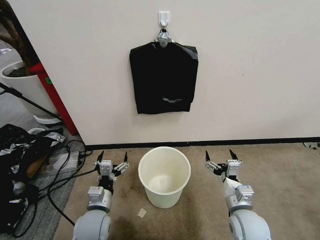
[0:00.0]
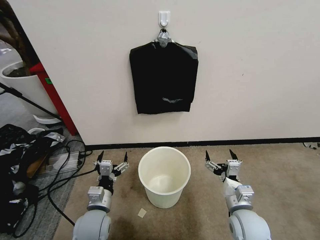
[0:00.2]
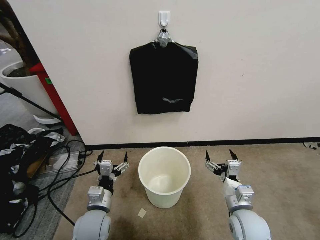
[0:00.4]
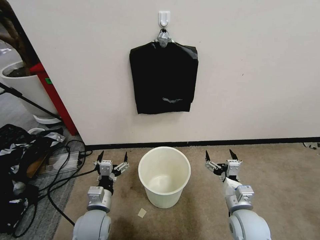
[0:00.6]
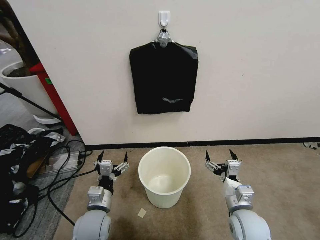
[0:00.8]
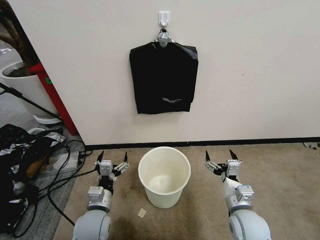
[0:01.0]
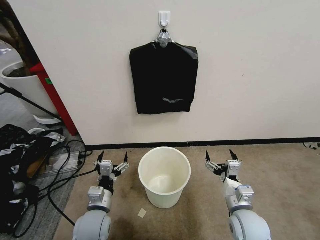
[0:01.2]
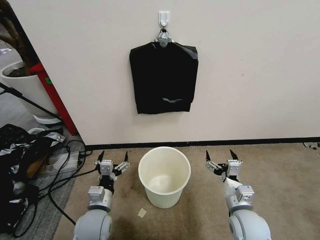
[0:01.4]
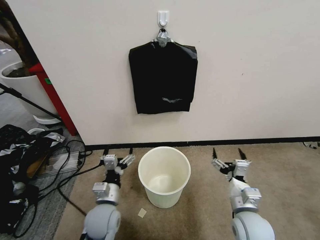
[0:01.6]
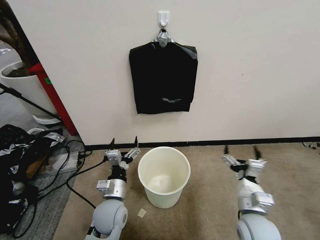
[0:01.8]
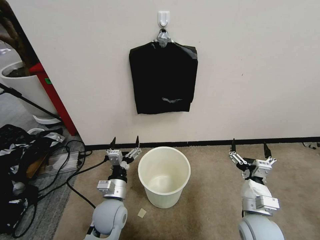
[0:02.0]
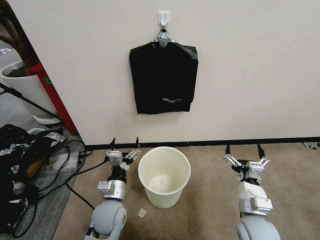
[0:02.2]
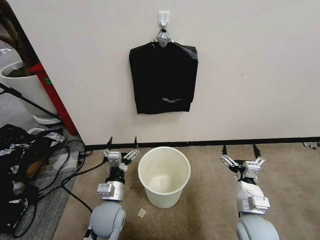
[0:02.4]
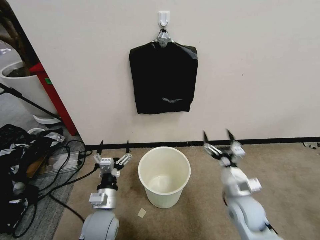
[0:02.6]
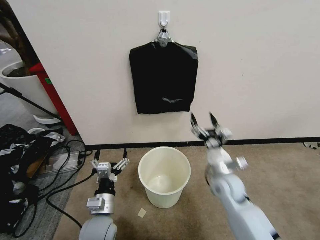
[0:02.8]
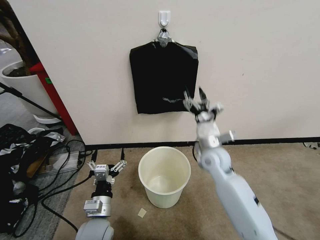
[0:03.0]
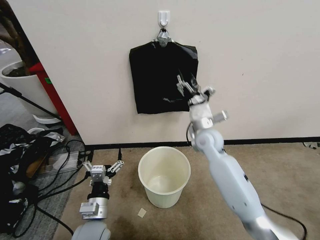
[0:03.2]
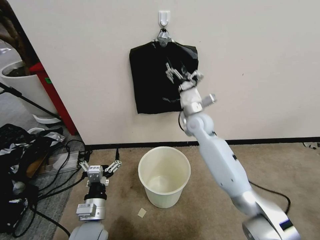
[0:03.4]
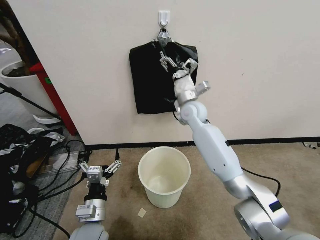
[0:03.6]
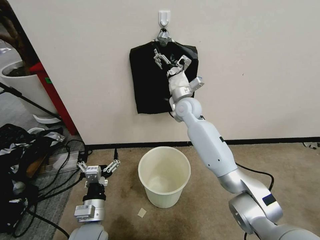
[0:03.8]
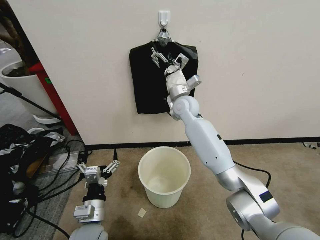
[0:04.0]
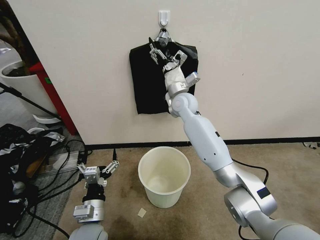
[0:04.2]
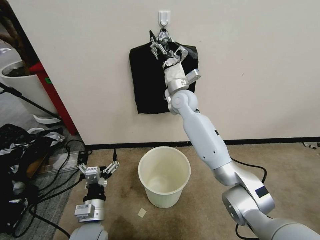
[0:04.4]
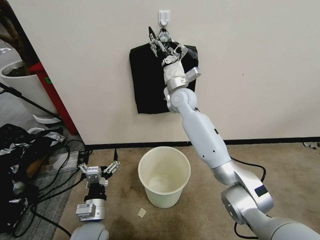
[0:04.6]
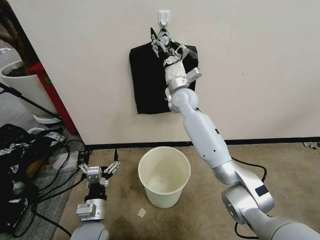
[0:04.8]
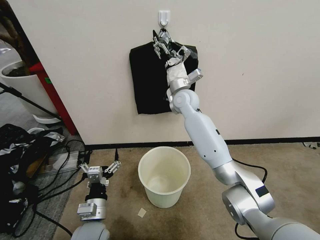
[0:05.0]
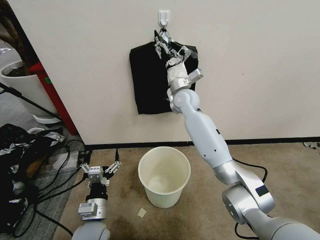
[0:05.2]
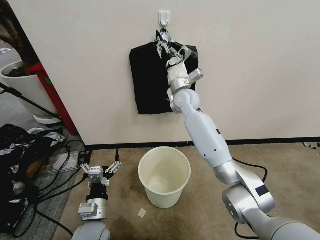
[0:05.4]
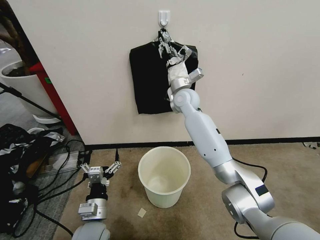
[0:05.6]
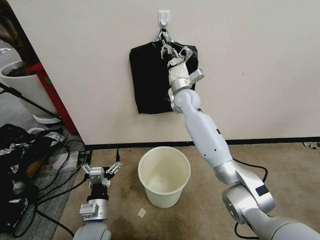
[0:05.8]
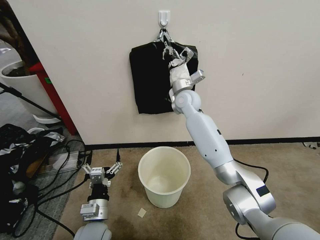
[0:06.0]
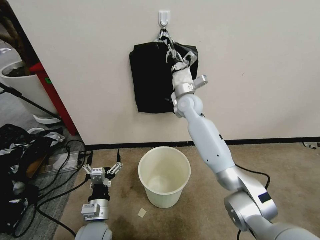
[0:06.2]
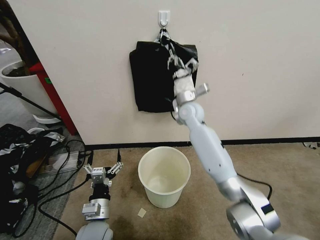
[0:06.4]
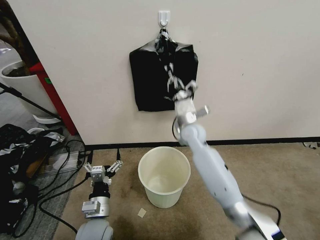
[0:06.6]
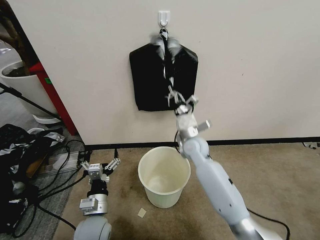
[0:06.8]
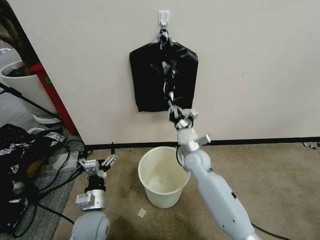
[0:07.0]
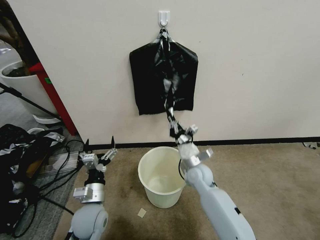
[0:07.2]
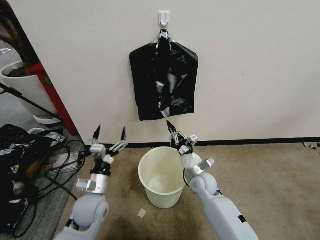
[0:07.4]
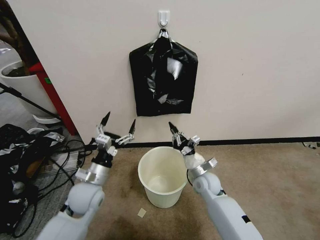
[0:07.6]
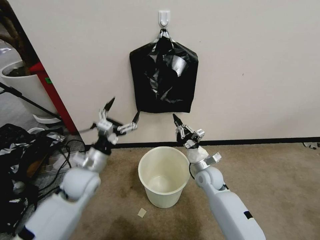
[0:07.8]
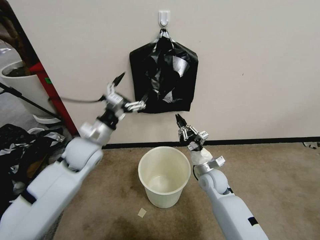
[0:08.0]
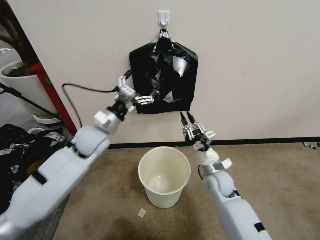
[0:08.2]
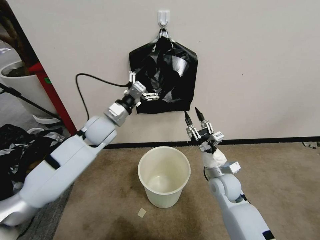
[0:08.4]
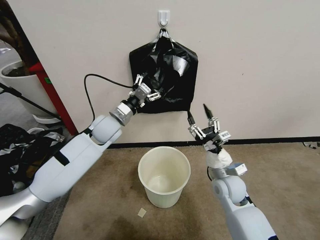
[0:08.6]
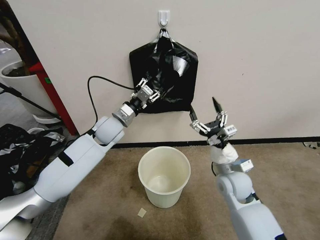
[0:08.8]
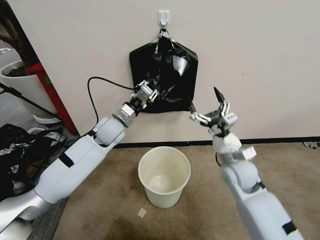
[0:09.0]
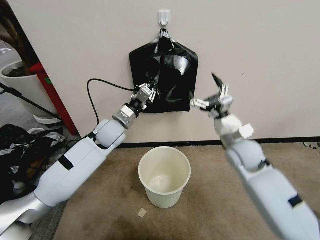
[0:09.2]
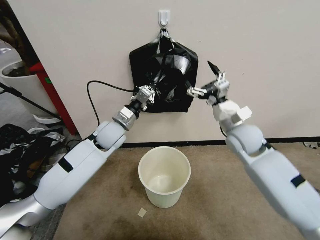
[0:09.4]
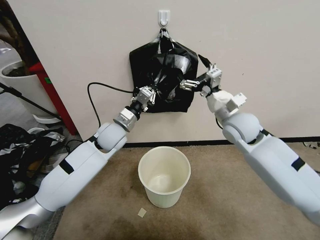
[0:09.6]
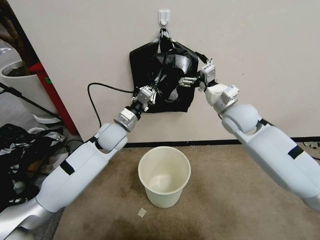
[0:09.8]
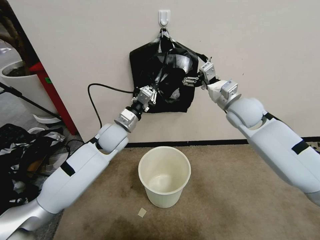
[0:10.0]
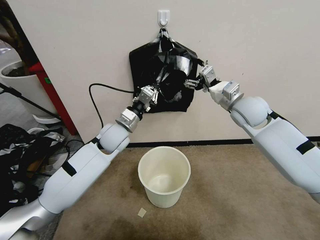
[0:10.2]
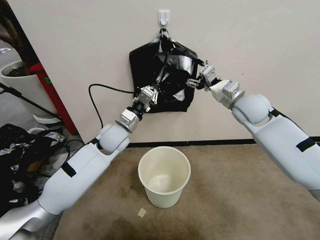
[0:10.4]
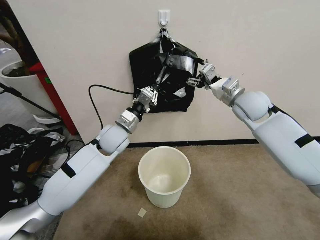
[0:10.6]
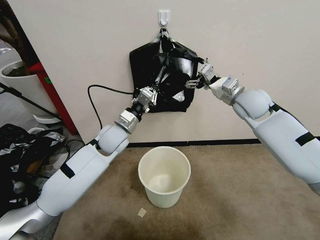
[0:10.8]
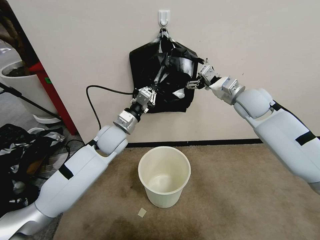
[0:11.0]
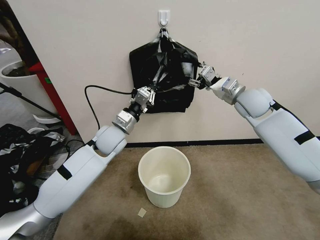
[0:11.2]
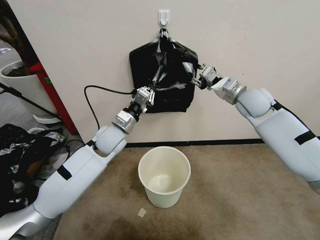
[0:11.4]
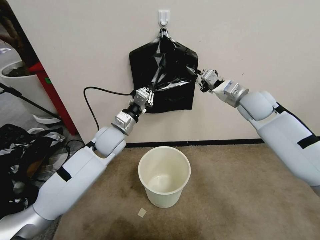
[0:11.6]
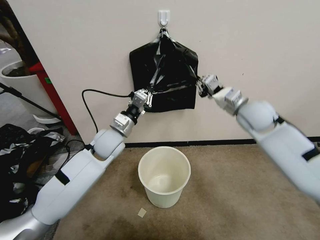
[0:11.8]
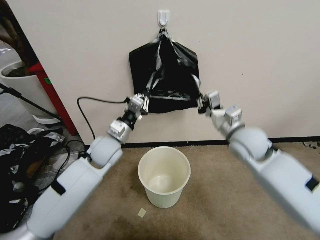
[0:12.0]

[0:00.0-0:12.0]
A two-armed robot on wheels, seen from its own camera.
Task of the whole recording: Place a trash bag onto the trash bin.
0:01.6 to 0:03.0: The right gripper moves forward, roughly 20 cm.
0:03.0 to 0:04.4: The right gripper heads forward, upward and to the left, covering roughly 25 cm.
0:04.4 to 0:06.0: The right gripper closes up.
0:06.0 to 0:07.6: The right gripper moves downward and backward, roughly 30 cm; the left gripper moves forward and upward, roughly 10 cm.
0:07.6 to 0:09.0: The right gripper is displaced upward by some 15 cm, and opens, while the left gripper shifts some 20 cm forward and upward, and closes its fingers.
0:09.0 to 0:10.4: The right gripper moves forward and upward, roughly 20 cm.
0:10.4 to 0:12.0: The right gripper moves backward and downward, approximately 10 cm, and closes; the left gripper ends up about 5 cm from where it was.

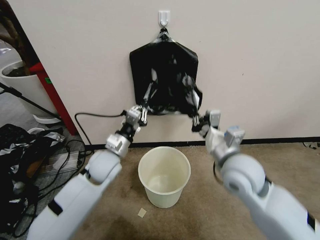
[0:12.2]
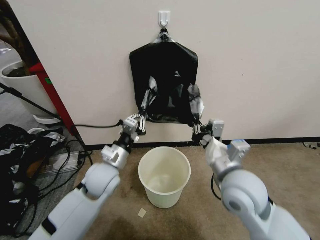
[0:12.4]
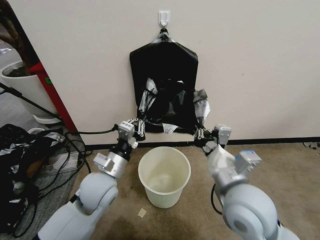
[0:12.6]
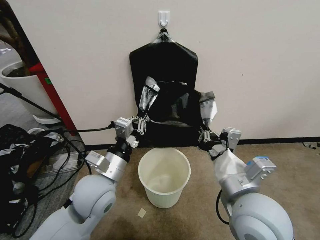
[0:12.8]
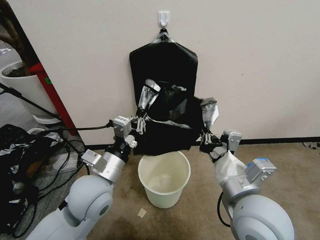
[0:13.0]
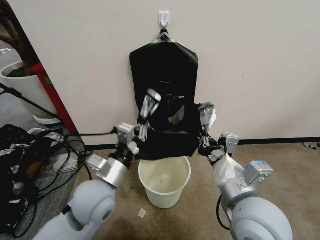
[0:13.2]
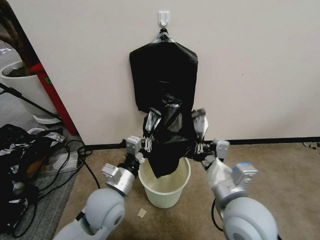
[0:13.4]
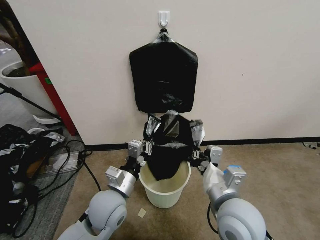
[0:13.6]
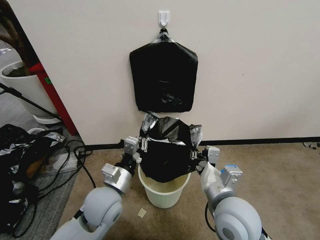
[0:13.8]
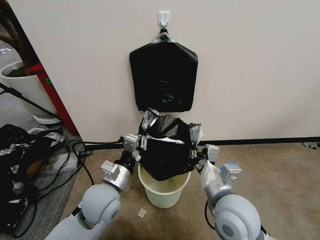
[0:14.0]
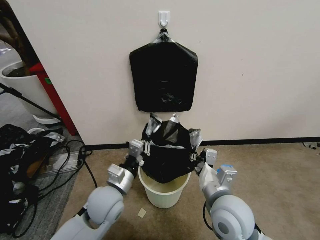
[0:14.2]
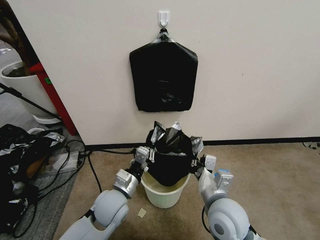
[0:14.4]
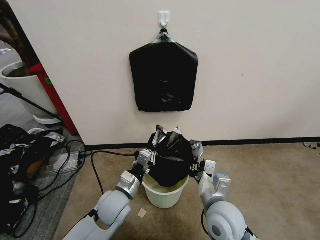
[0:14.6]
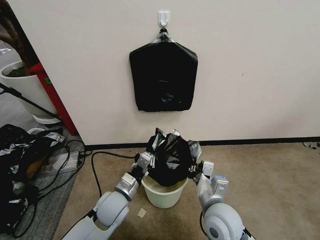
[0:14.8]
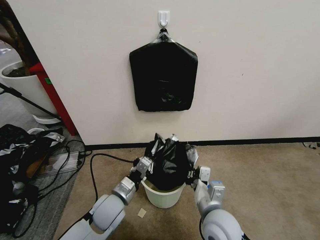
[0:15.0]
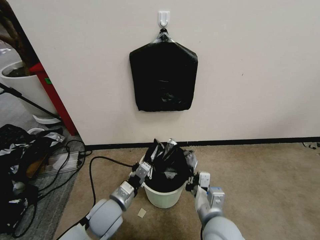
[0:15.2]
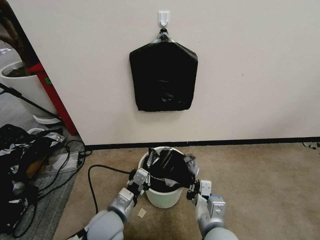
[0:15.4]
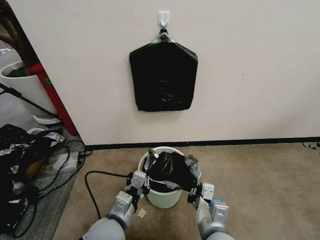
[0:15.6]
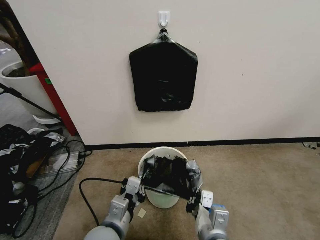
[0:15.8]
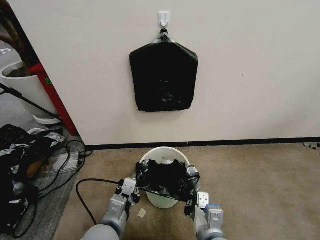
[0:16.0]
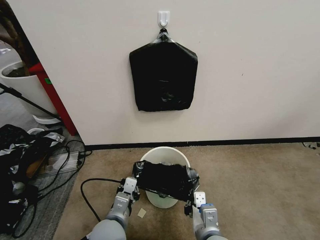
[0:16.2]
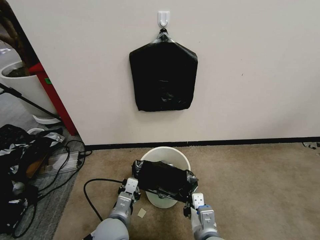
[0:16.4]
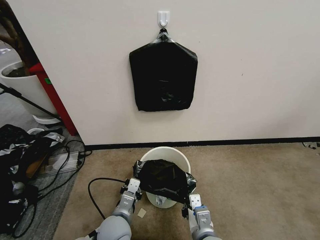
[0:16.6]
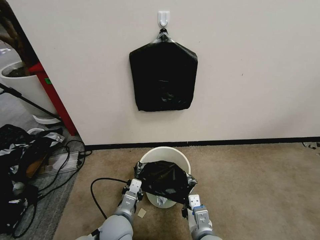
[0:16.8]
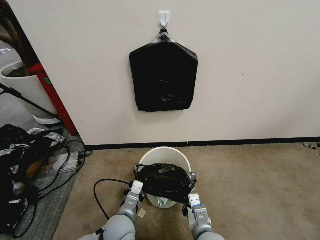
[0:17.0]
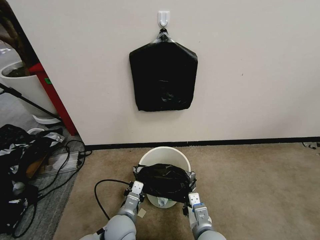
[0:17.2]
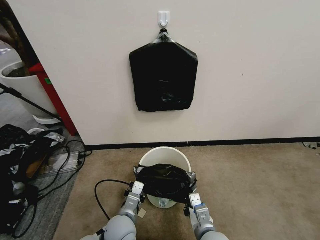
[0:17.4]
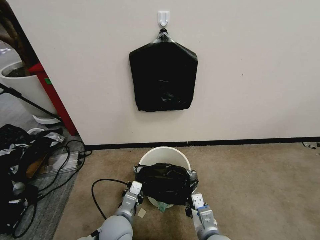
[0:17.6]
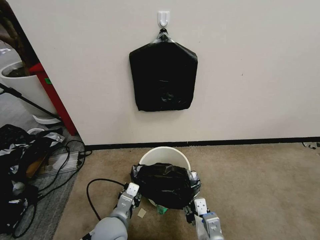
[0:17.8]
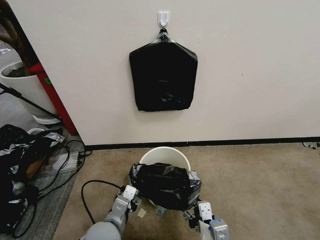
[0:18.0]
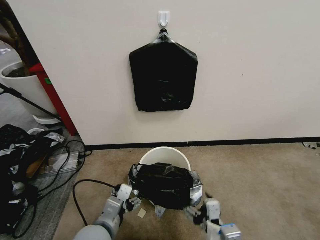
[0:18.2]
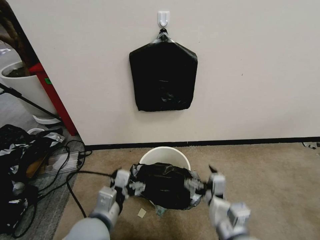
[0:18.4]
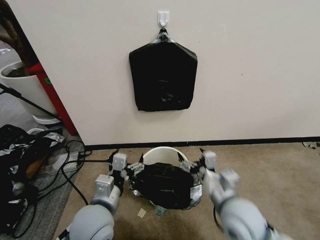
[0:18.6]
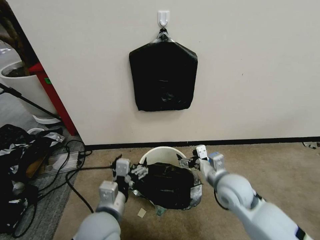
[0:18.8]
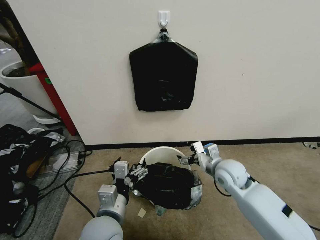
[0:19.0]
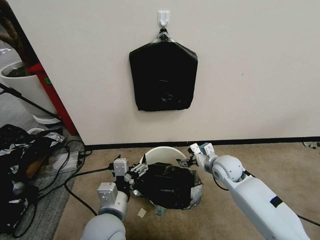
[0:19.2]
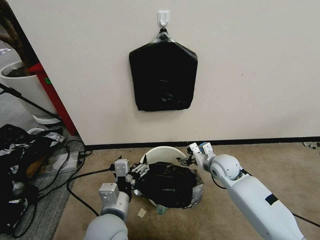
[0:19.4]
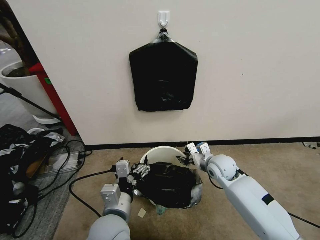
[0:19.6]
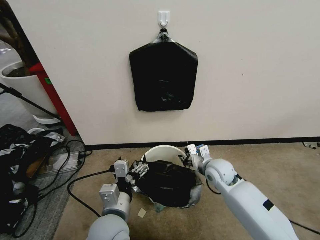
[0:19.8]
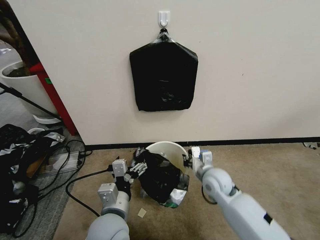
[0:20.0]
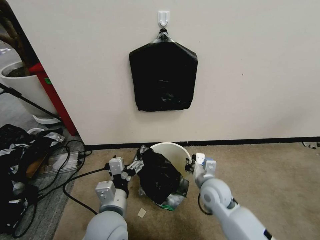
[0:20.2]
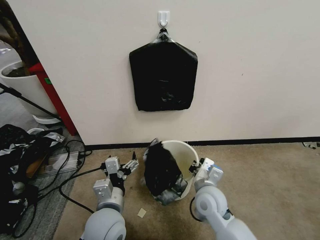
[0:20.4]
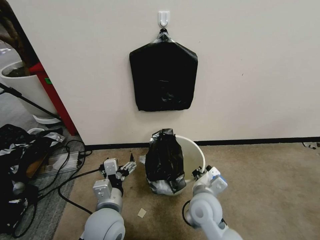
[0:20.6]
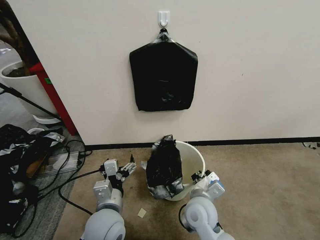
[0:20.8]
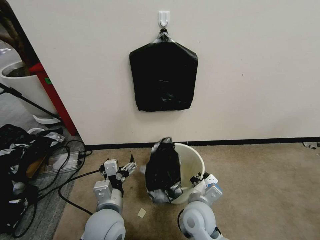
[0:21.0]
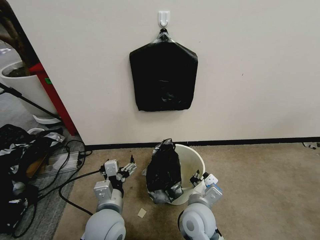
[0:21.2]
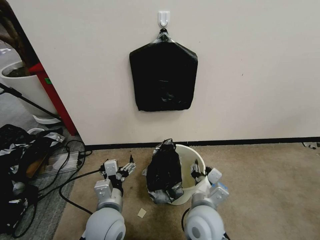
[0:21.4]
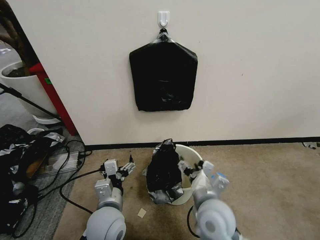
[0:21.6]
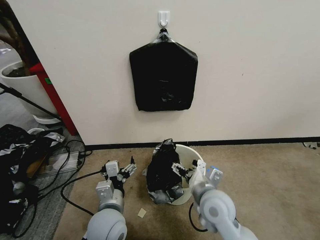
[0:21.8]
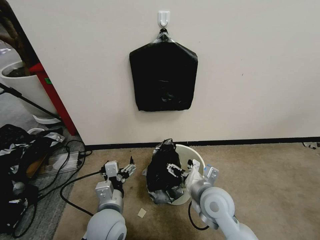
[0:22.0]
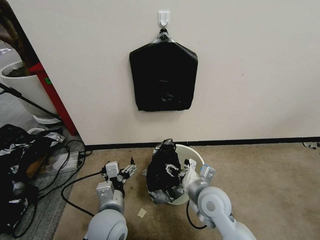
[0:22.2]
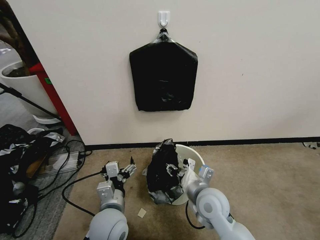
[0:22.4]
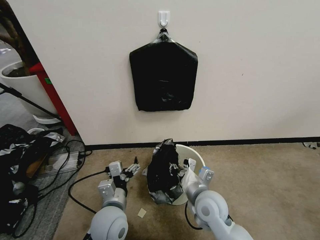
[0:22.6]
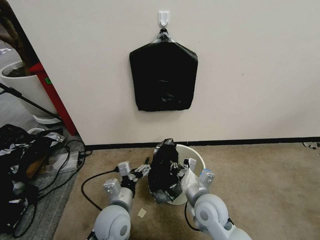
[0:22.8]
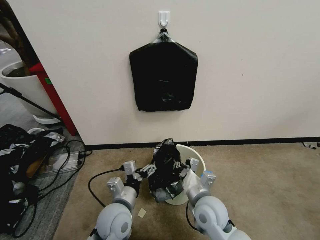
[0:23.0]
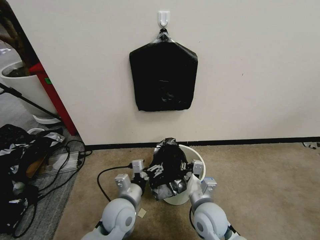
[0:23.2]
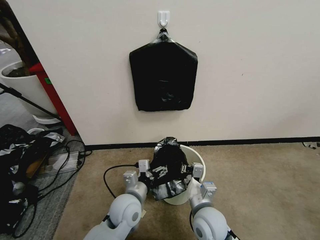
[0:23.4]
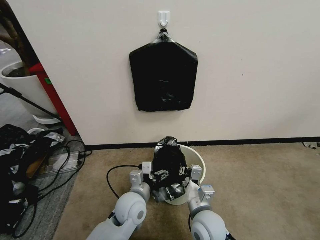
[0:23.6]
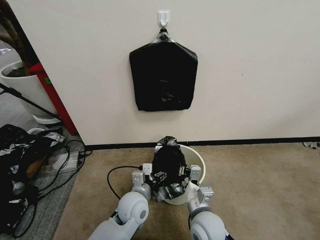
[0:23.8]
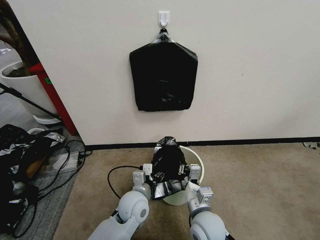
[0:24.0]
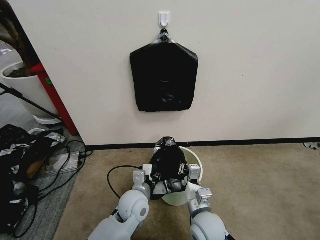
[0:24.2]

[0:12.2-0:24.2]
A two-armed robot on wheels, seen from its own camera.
Task of the whole recording: Place a trash bag onto the trash bin.
0:12.2 to 0:13.8: Both grippers move backward, some 10 cm.
0:13.8 to 0:15.2: Both grippers move downward, about 10 cm.
0:15.2 to 0:16.6: The right gripper moves roughly 5 cm. The left gripper moves approximately 5 cm upward and comes back.
0:16.6 to 0:18.2: The left gripper heads upward, covering some 10 cm, and opens up. The right gripper travels upward and backward by some 10 cm, and opens.
0:18.2 to 0:19.8: The right gripper moves forward, approximately 30 cm, and closes up.
0:19.8 to 0:21.2: The right gripper goes approximately 20 cm backward and to the left.
0:21.2 to 0:22.6: The right gripper ends up roughly 5 cm from where it was, and opens and closes again.
0:22.6 to 0:24.2: The left gripper is displaced forward and to the right by some 10 cm, and closes up. The right gripper shifts by about 5 cm.
